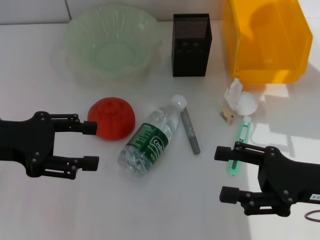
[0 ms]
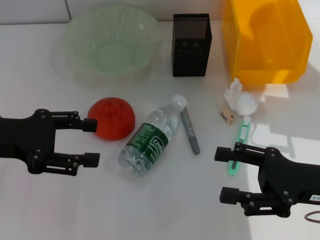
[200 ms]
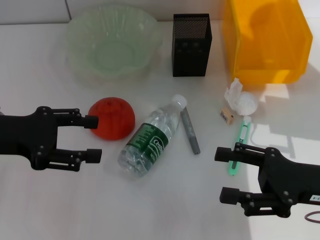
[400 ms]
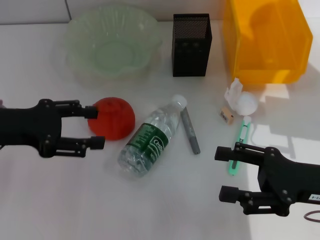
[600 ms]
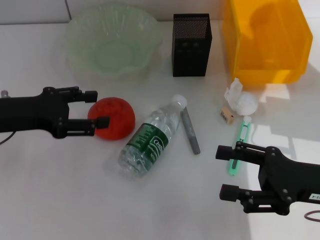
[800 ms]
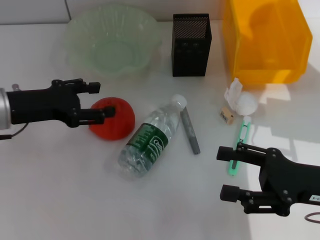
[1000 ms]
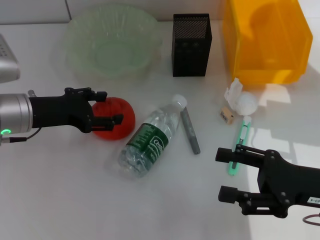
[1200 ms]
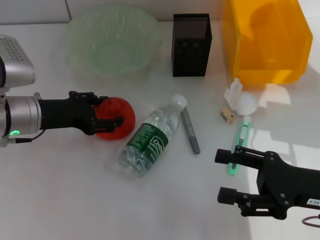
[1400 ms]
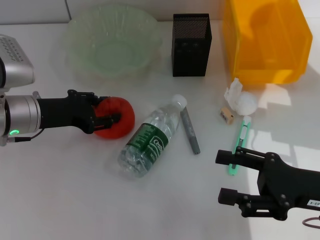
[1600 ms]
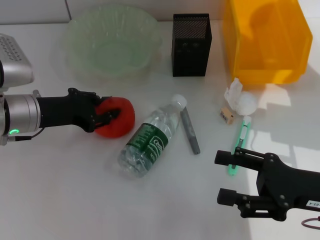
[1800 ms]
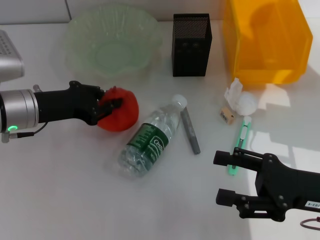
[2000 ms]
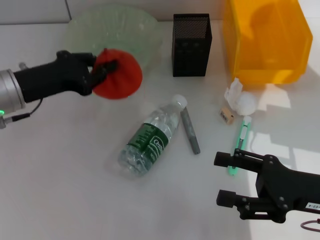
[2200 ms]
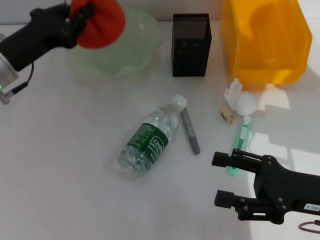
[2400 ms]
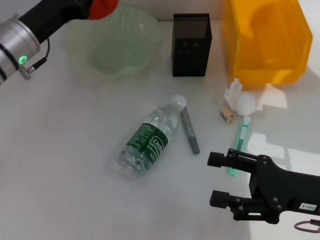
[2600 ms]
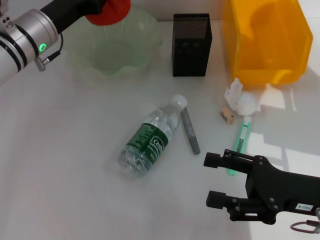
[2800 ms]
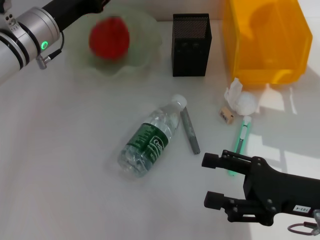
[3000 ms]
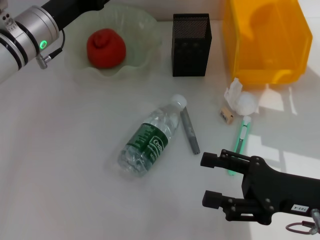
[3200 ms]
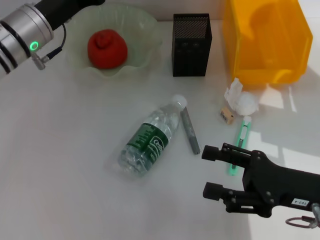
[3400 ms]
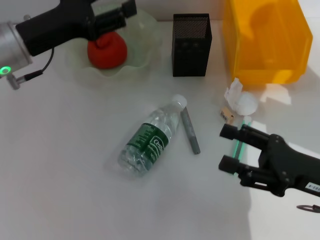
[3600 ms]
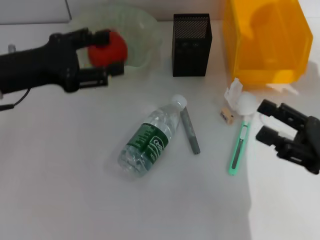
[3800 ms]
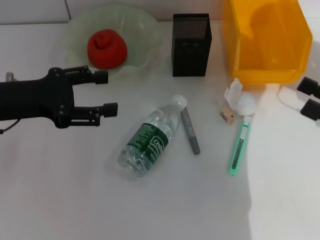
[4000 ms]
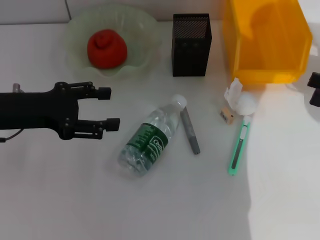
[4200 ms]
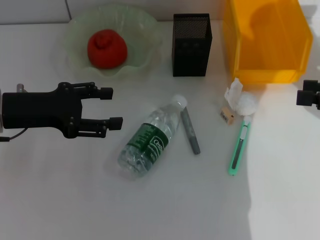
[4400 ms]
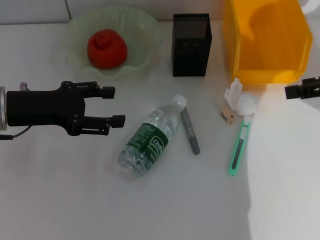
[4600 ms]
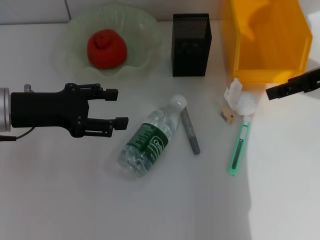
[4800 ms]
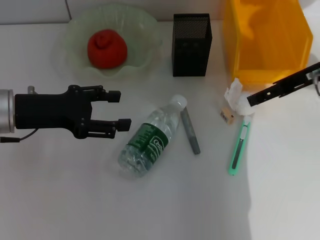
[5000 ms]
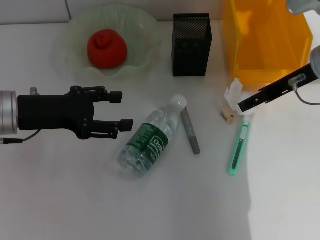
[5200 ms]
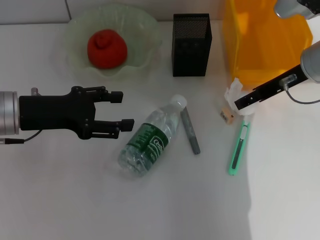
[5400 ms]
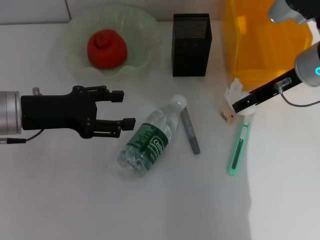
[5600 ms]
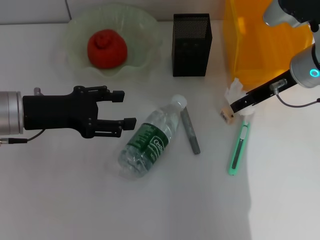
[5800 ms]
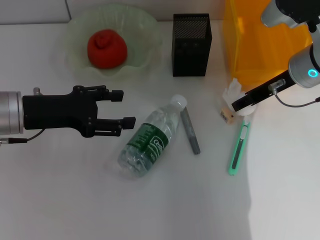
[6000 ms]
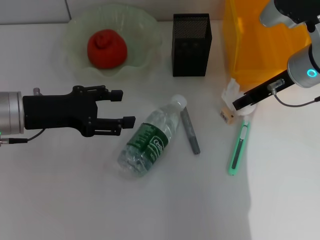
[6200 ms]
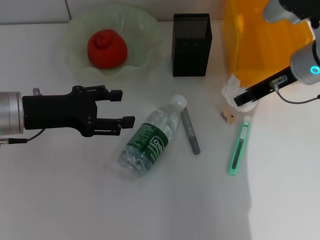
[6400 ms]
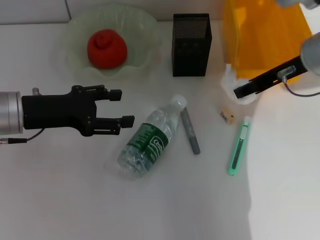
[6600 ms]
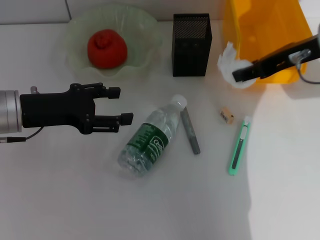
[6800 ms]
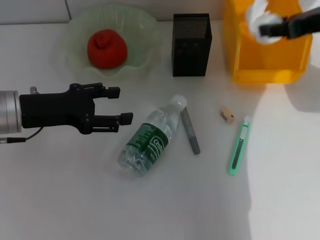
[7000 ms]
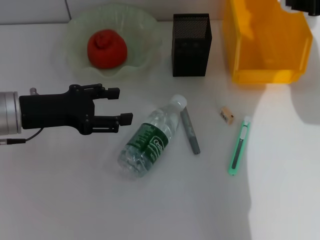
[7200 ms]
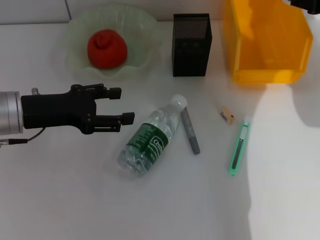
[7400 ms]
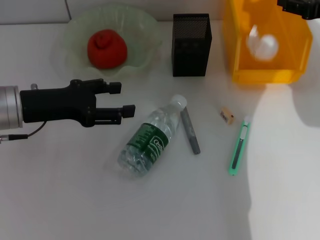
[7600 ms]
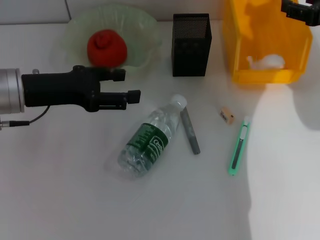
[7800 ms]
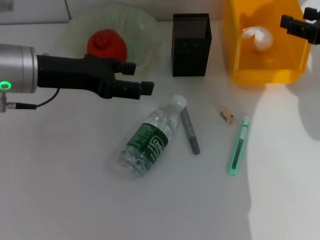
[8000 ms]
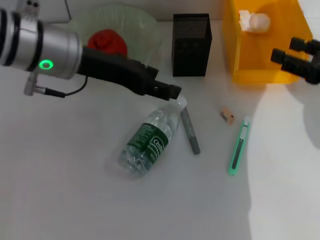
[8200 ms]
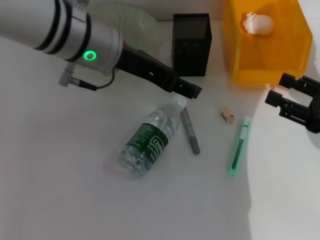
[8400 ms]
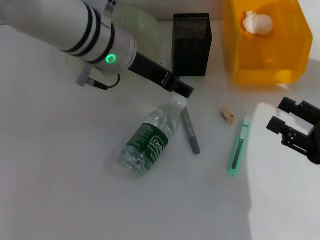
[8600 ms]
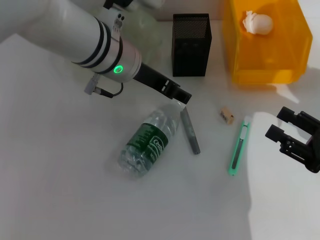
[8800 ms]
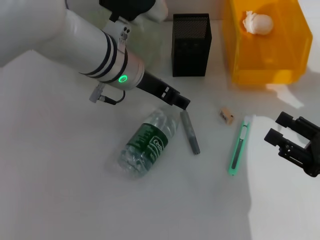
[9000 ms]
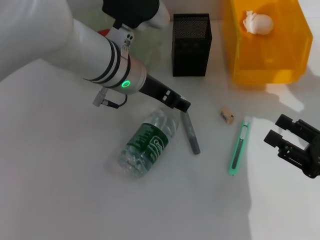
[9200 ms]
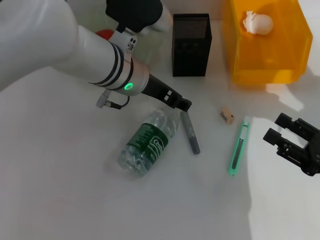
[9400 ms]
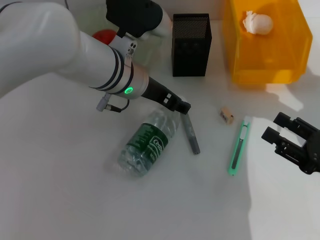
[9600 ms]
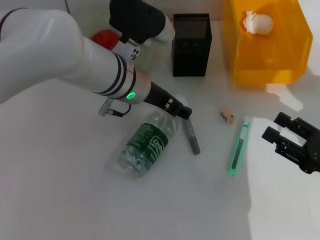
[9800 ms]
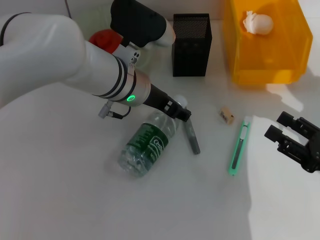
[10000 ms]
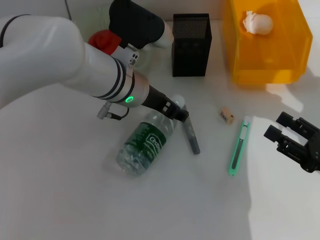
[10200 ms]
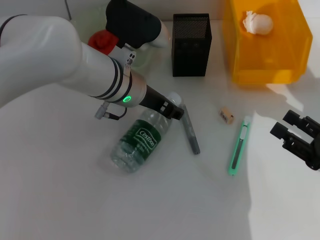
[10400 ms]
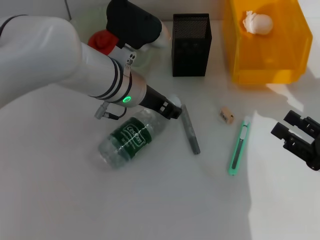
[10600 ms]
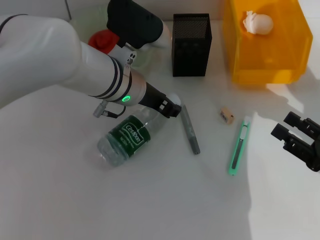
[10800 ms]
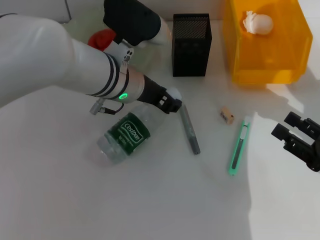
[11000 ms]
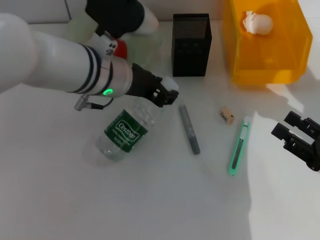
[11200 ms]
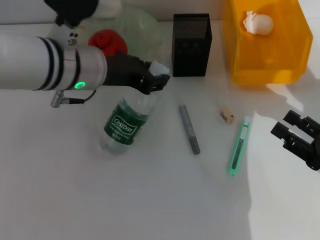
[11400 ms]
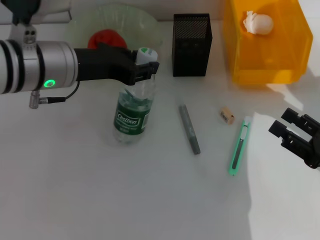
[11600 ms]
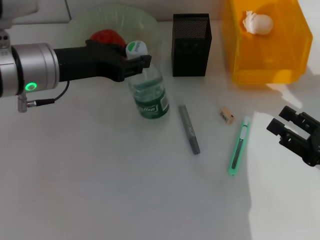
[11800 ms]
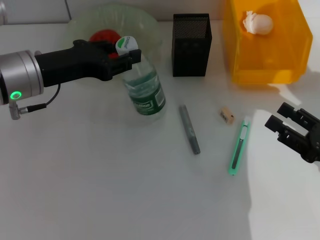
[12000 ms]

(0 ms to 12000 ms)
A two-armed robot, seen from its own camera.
Step, 0 ms - 1600 ms: Grab the orange with the left hand.
Step, 1800 ms - 3200 ms: Place the orange into the fruit bowl with the left hand.
Step, 3400 ms - 6000 ms: Grab the paper ball with the right hand.
Step, 6200 ms - 7800 ms: Place the paper ball into the trash can with the right hand.
Step, 8000 ms - 10400 ms: Grab the water bottle with the left hand.
0 ms - 1600 ms: The left gripper is displaced downward, forward and to the right by some 10 cm.
1600 ms - 3000 ms: The left gripper goes about 10 cm forward, and closes its fingers.
3000 ms - 4400 ms: The left gripper moves backward and to the left, roughly 15 cm, and opens its fingers; the right gripper travels upward, to the right and forward by roughly 20 cm.
4400 ms - 6000 ms: The right gripper is displaced to the left and forward by some 20 cm.
6000 ms - 7600 ms: The right gripper is displaced to the right by approximately 10 cm, and closes up.
7600 ms - 9000 ms: The right gripper heads backward and downward, covering approximately 25 cm. The left gripper moves to the right, approximately 15 cm.
9000 ms - 10400 ms: The grippers make only small movements.
10400 ms - 12000 ms: The left gripper moves to the left, approximately 15 cm, and closes its fingers.

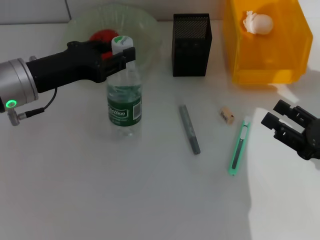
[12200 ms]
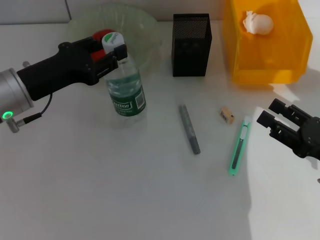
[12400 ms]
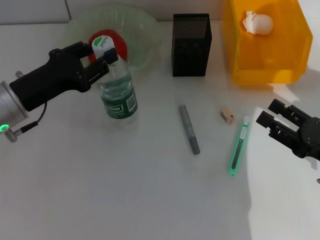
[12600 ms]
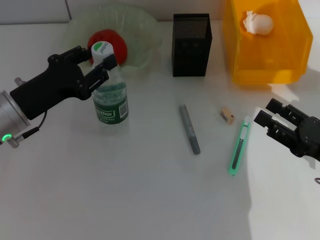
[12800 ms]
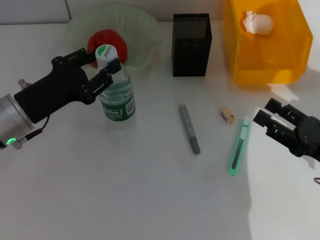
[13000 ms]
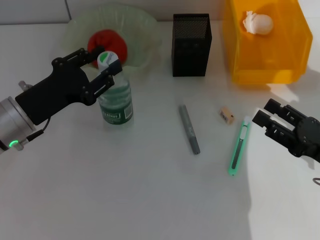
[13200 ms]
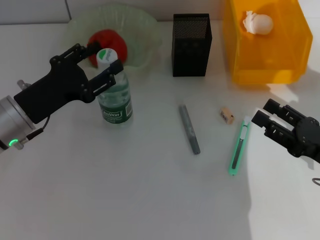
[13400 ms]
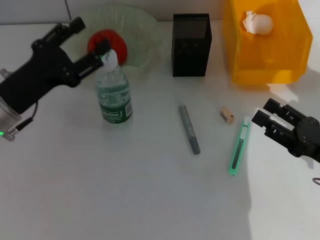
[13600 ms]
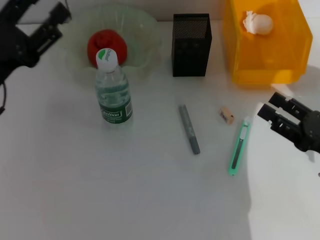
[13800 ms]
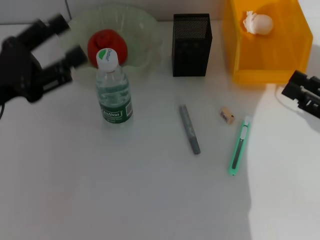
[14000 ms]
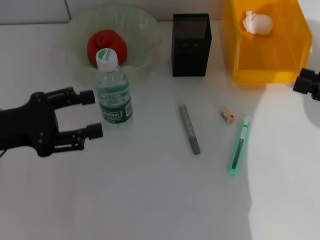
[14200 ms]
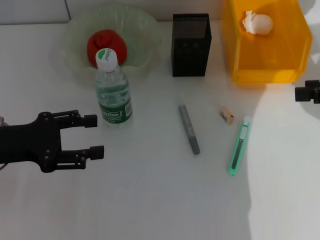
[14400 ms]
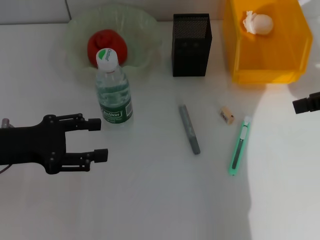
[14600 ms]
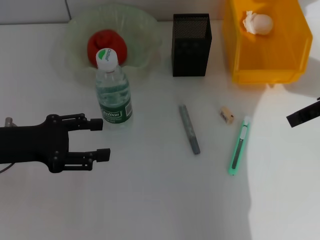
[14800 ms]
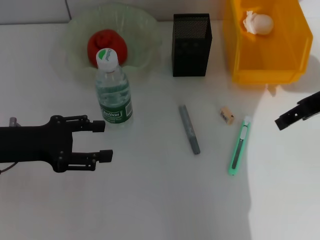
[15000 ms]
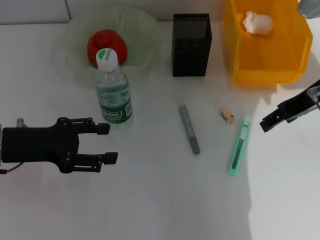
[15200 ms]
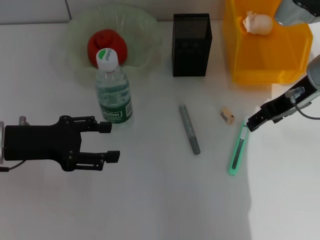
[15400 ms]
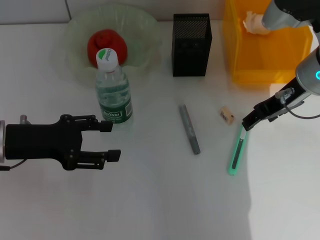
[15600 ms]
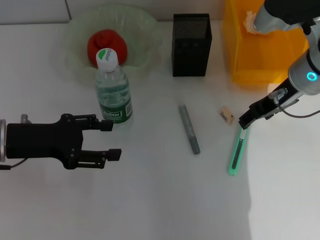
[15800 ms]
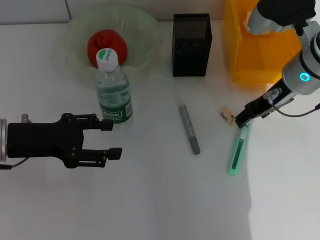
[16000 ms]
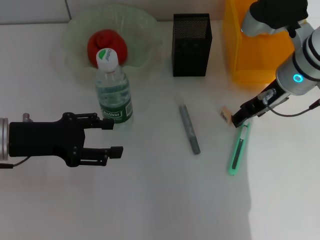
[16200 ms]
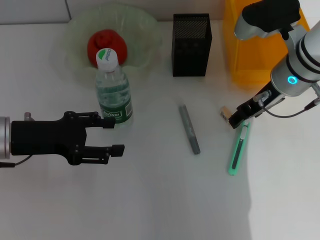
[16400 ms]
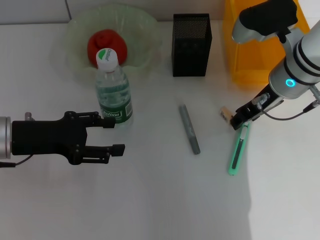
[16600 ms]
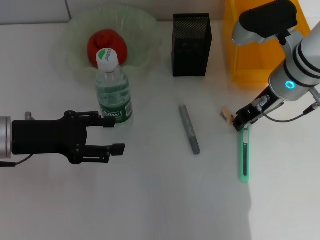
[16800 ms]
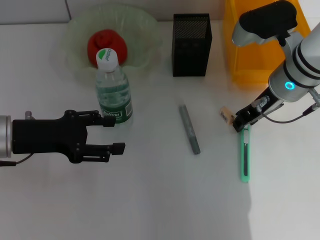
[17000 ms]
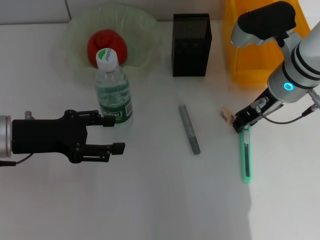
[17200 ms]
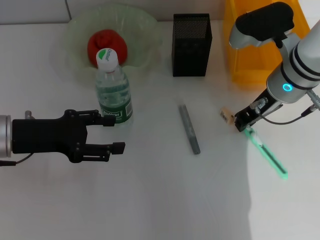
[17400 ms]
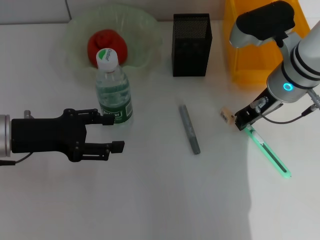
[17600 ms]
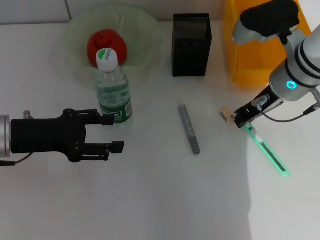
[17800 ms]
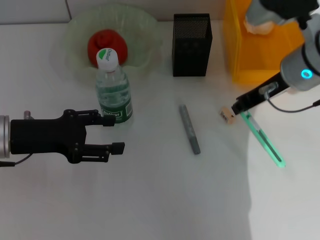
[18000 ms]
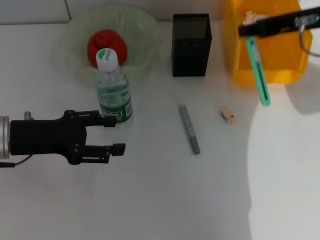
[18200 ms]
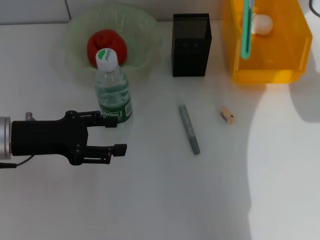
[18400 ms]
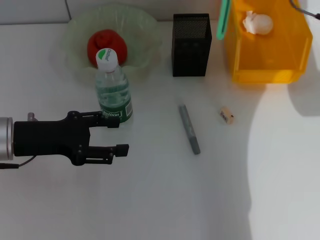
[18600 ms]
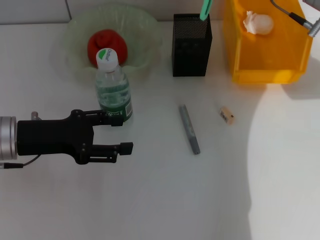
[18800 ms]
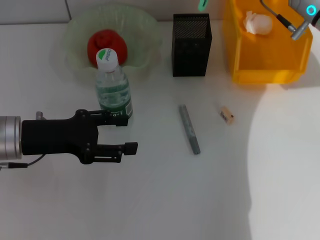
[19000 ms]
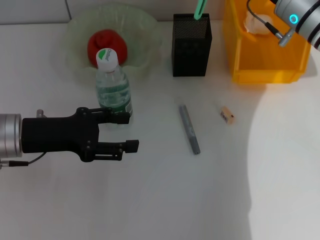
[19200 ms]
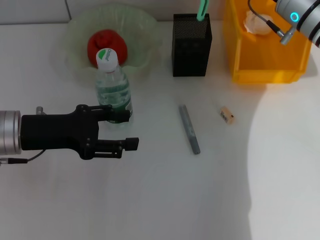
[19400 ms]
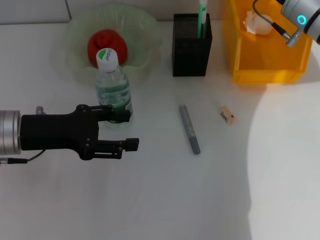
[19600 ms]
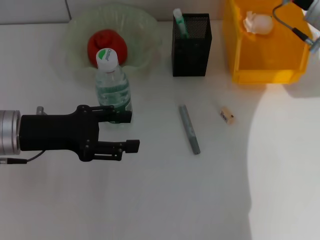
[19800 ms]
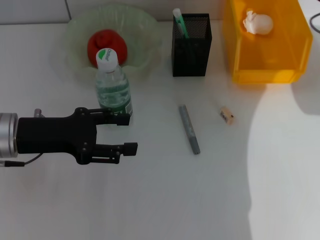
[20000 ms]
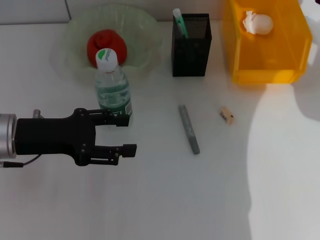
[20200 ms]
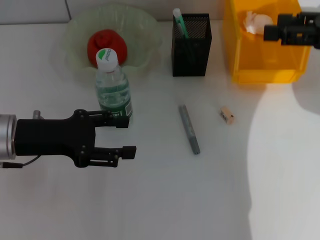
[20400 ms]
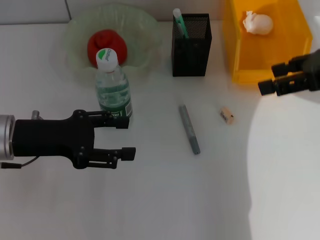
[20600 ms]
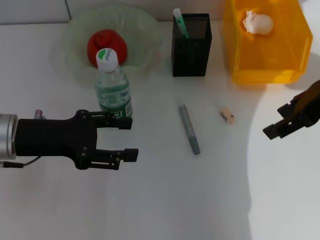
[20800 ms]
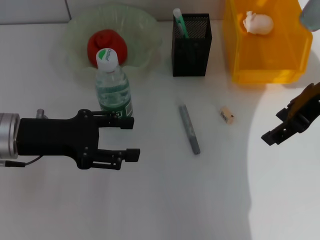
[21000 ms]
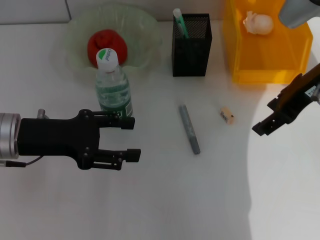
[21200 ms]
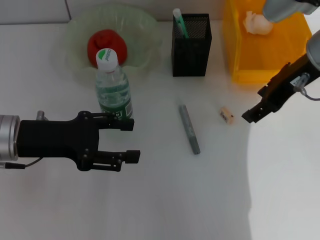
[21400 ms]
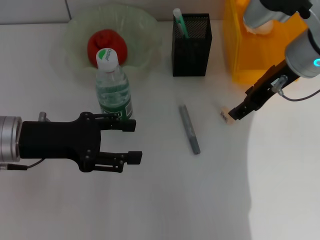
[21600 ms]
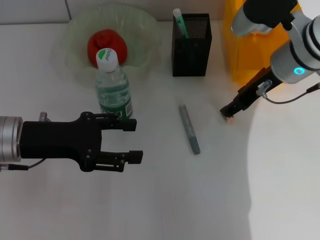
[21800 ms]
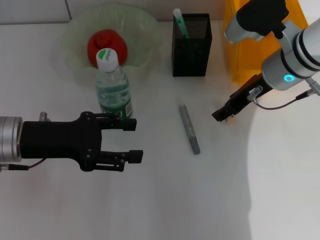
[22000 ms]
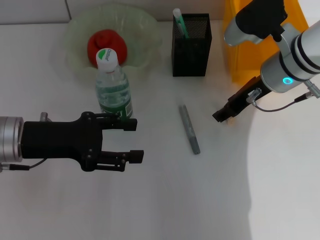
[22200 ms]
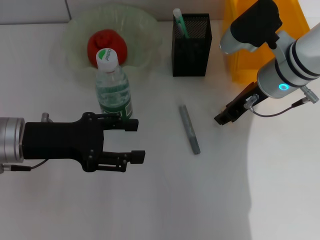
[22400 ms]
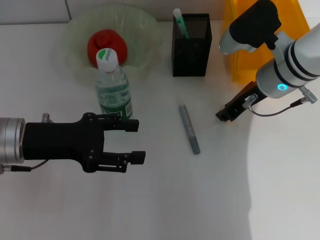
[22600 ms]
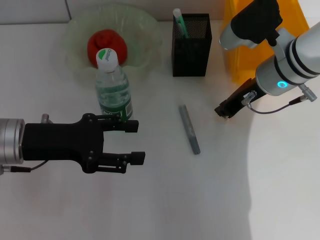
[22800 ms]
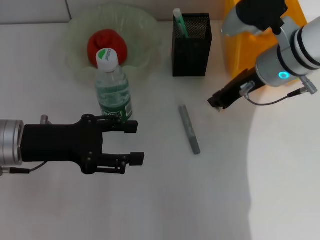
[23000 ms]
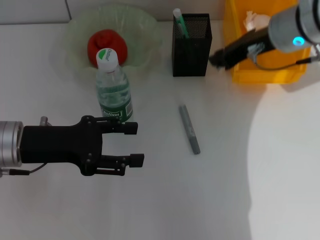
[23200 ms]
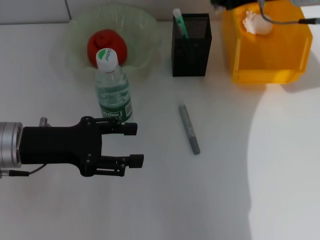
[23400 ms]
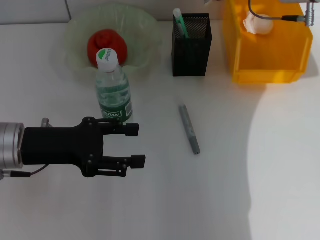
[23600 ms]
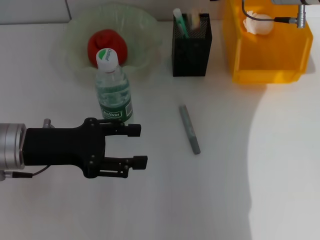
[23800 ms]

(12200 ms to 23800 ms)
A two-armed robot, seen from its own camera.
Step, 12200 ms - 13800 ms: Place the water bottle on the table with the left hand.
Step, 14000 ms - 17400 ms: Grab the blue utility knife with the right hand.
Step, 17600 ms - 20000 ms: Place the blue utility knife into the pen holder with the right hand.
Step, 20200 ms - 22600 ms: Grab the eraser with the right hand.
12200 ms - 13600 ms: The left gripper ends up roughly 5 cm from where it was, and opens its fingers.
13600 ms - 15000 ms: The right gripper travels upward and forward by about 20 cm.
15000 ms - 16600 ms: The right gripper shifts approximately 10 cm downward and to the left.
16600 ms - 18000 ms: The right gripper closes up.
18000 ms - 19400 ms: The right gripper heads forward, covering some 5 cm, and reaches roughly 10 cm upward, then returns.
19400 ms - 21000 ms: The right gripper heads backward and upward, covering approximately 10 cm, and opens its fingers.
21000 ms - 22400 ms: The right gripper is displaced downward, to the left and forward by roughly 10 cm.
22400 ms - 23800 ms: The right gripper travels upward and forward by roughly 10 cm, and closes up.
